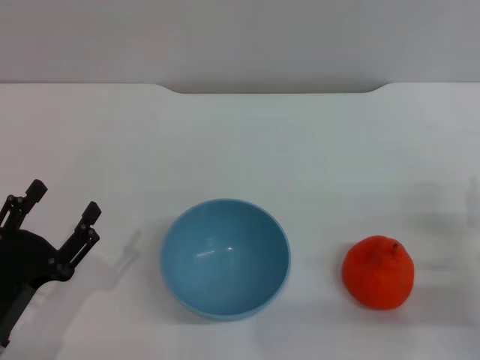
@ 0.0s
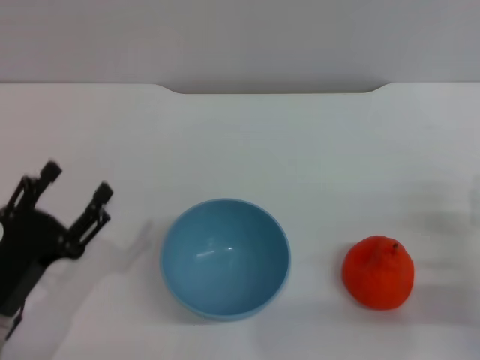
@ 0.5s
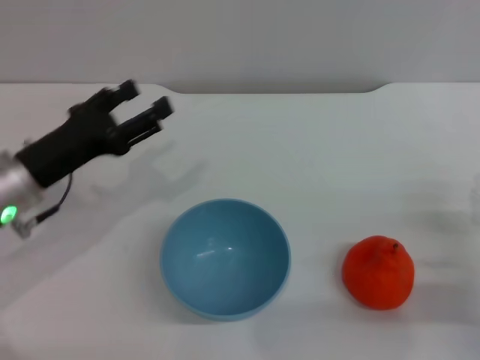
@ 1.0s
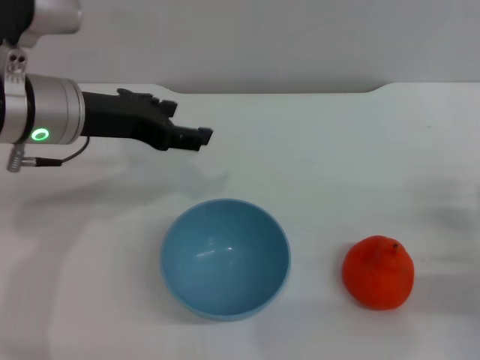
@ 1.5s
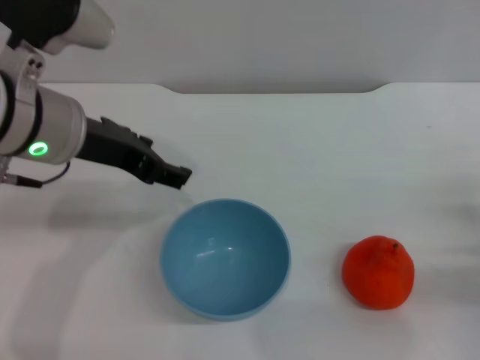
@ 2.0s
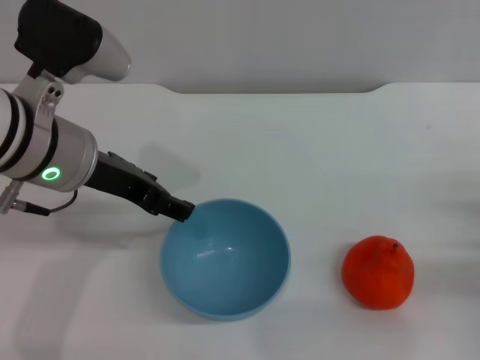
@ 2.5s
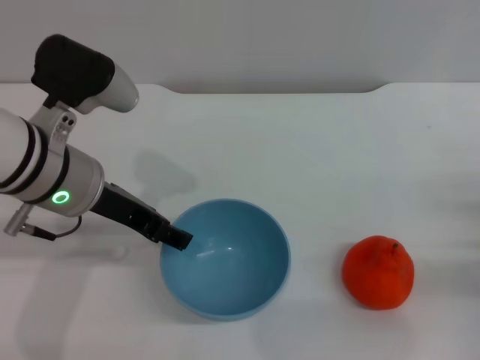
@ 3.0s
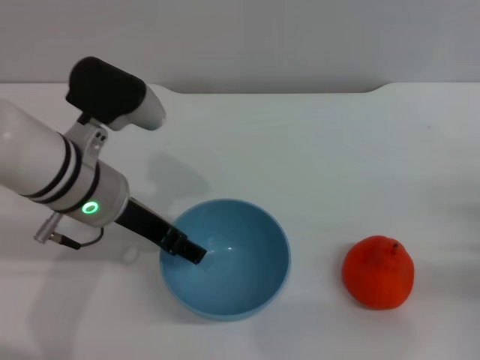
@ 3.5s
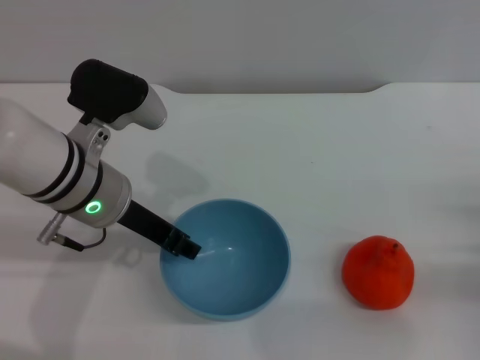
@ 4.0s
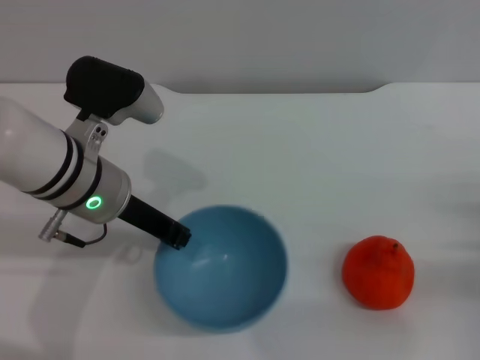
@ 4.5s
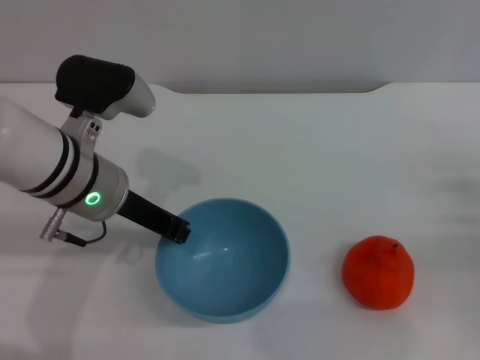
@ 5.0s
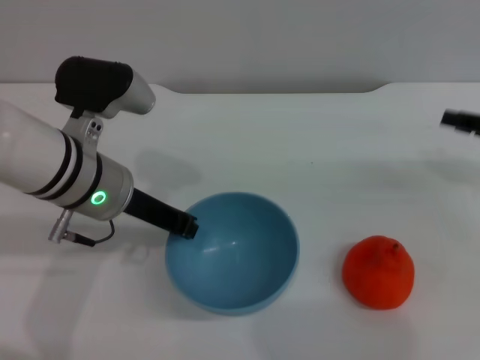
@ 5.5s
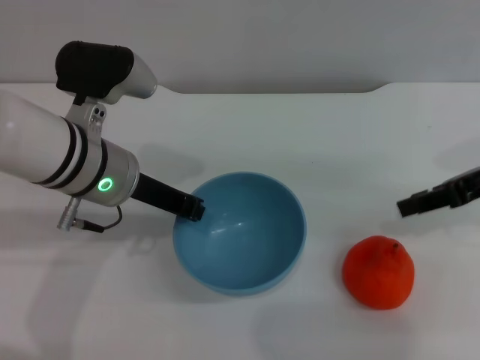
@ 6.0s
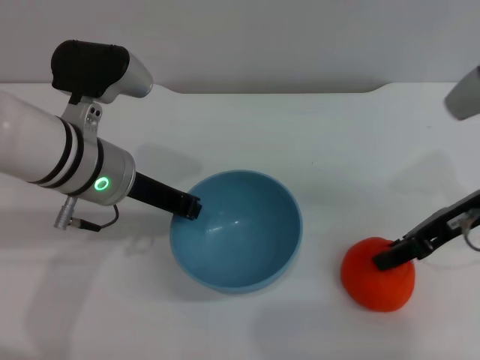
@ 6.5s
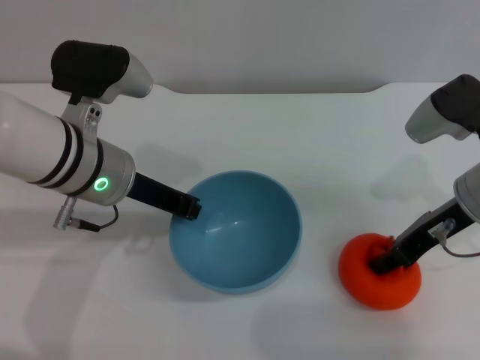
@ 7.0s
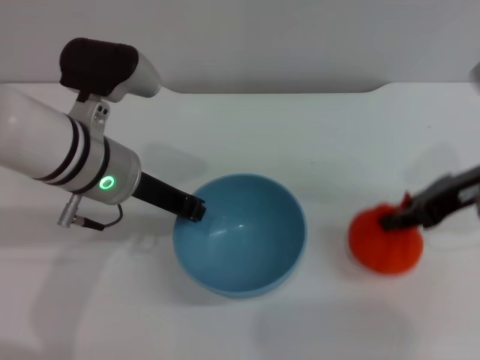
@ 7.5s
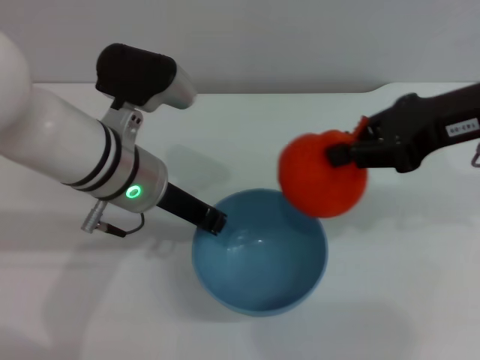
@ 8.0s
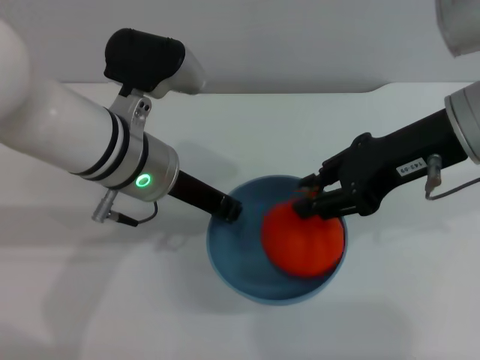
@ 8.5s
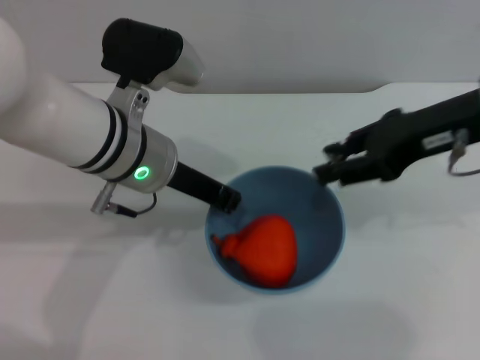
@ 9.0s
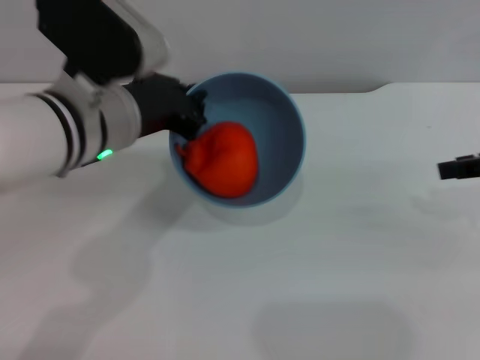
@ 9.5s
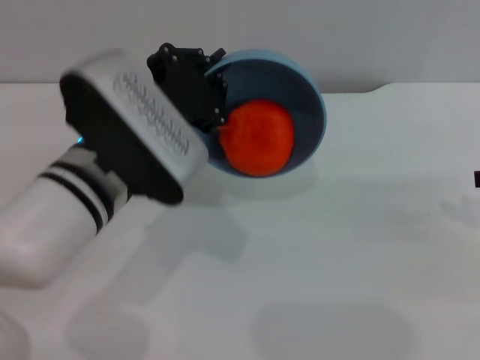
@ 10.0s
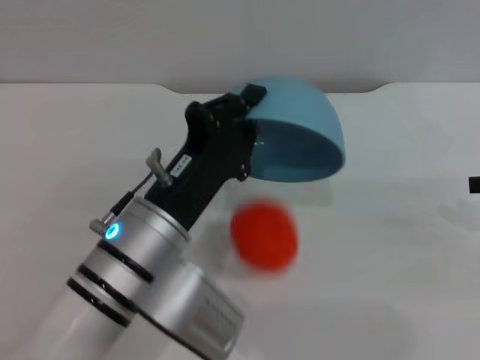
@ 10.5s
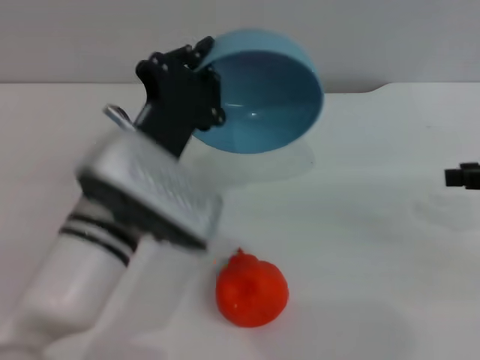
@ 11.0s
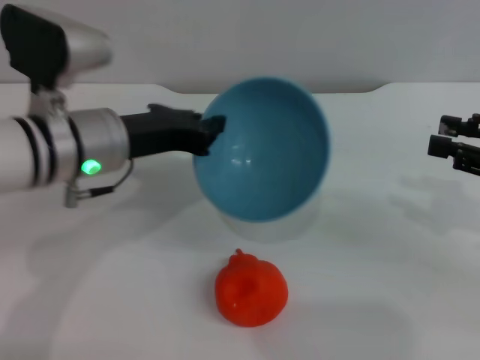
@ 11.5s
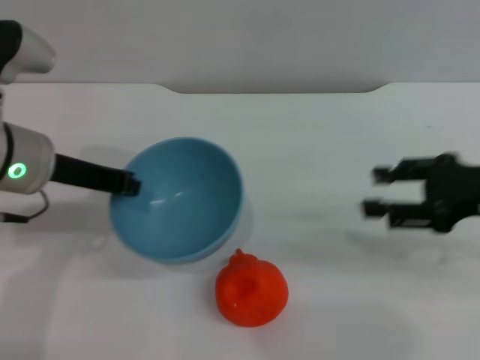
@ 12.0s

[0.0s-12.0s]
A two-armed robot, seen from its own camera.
Task of the whole recording: put the orange into the blue bowl and pour it out repeatedly.
Step, 0.0s to 6.0s: Pick up the bowl with the left gripper.
Step, 6.5s to 7.5s: Pick up the orange with the right gripper.
Step, 8.0s to 8.5s: Place the orange into the bowl.
Step, 9.0s to 10.5s: Pour the orange out of the bowl.
0.0s to 2.0s: The left gripper goes approximately 25 cm upward, forward and to the right.
2.0s to 4.0s: The left gripper heads downward, covering approximately 5 cm.
4.0s to 6.0s: The right gripper is displaced upward and forward by some 20 cm, while the left gripper closes up.
6.0s to 8.0s: The right gripper moves upward and to the left, approximately 10 cm, and closes up.
8.0s to 10.0s: The left gripper goes approximately 5 cm backward, while the right gripper is displaced to the right and downward by about 15 cm, and opens.
10.0s to 12.0s: Both grippers travel together to the left, roughly 10 cm.

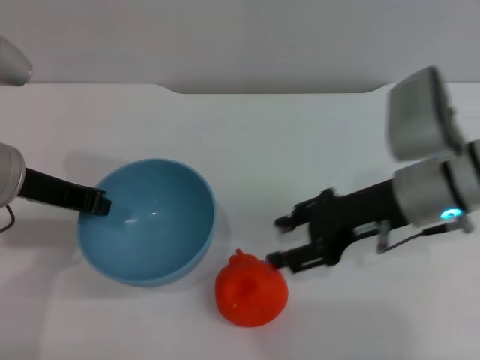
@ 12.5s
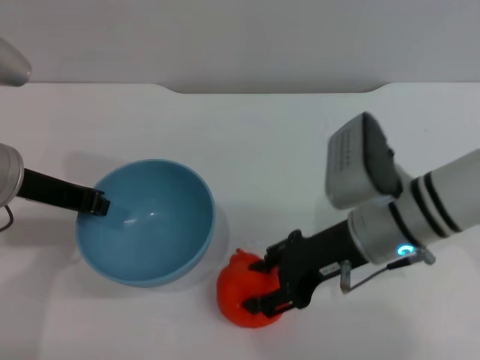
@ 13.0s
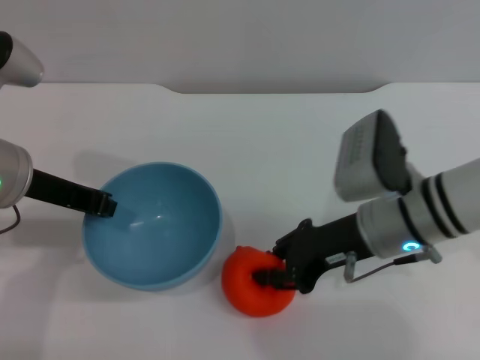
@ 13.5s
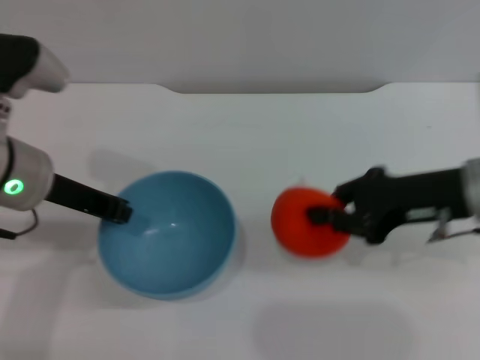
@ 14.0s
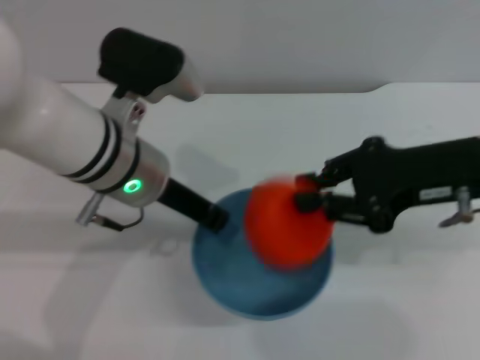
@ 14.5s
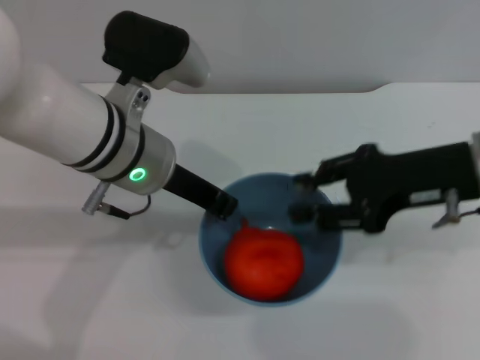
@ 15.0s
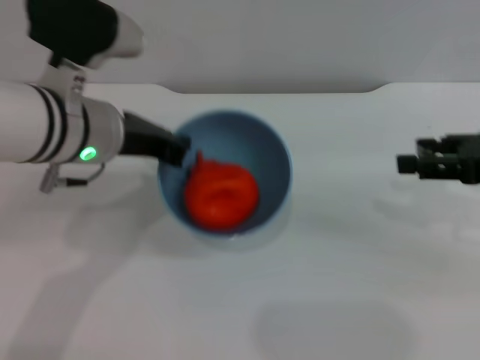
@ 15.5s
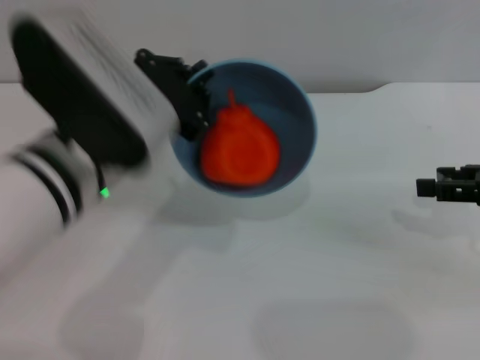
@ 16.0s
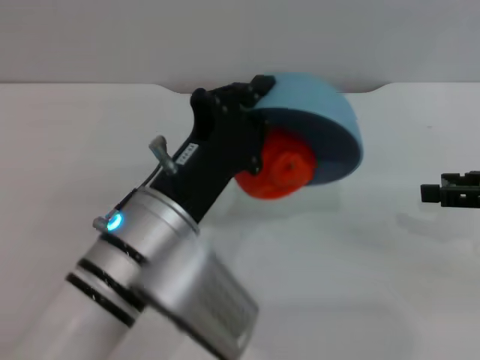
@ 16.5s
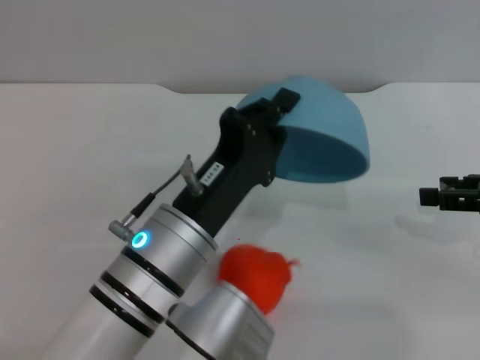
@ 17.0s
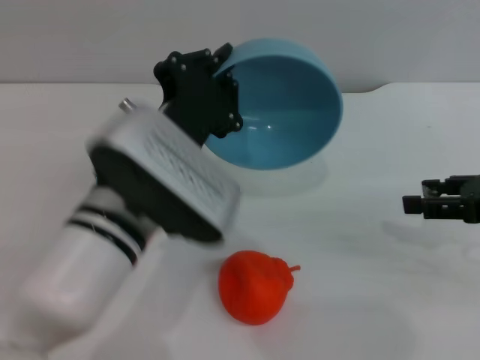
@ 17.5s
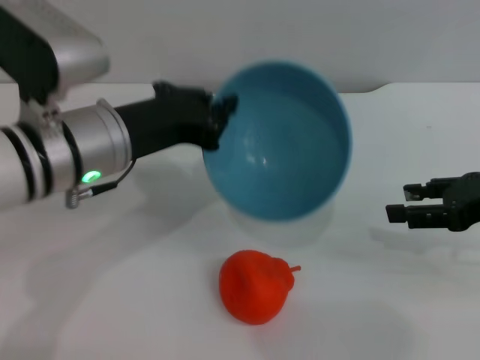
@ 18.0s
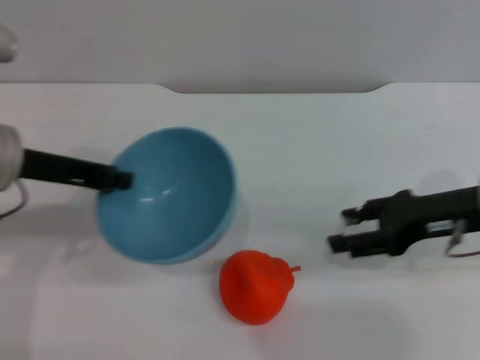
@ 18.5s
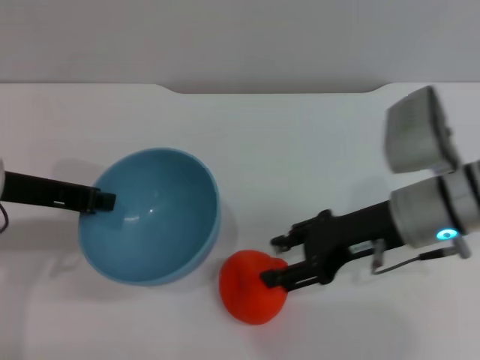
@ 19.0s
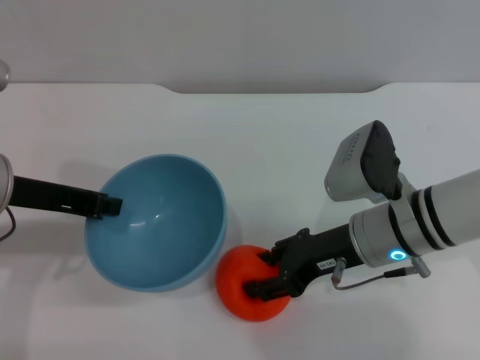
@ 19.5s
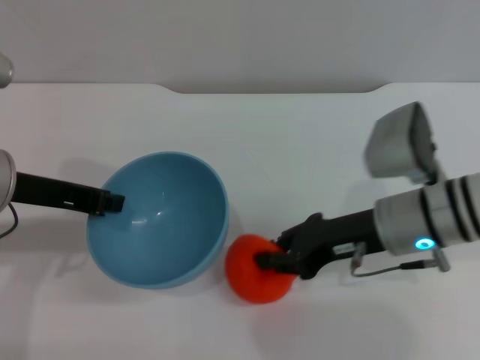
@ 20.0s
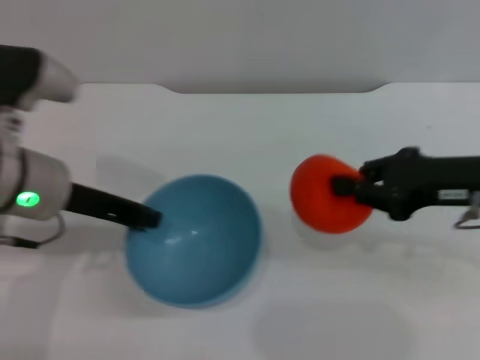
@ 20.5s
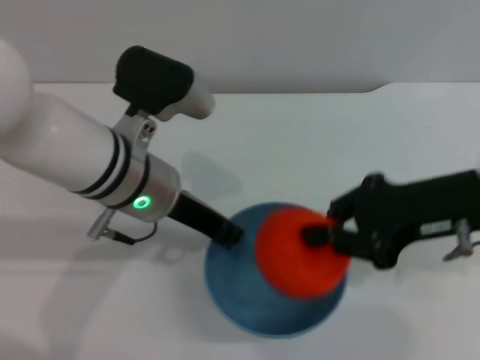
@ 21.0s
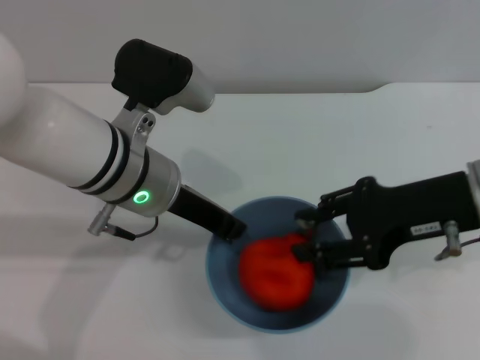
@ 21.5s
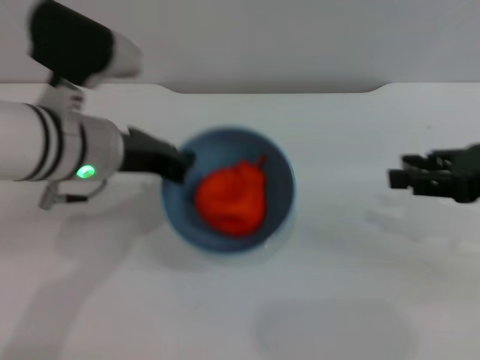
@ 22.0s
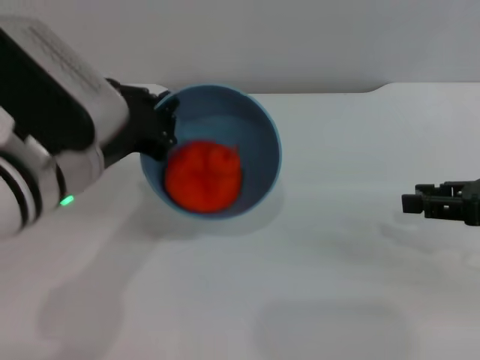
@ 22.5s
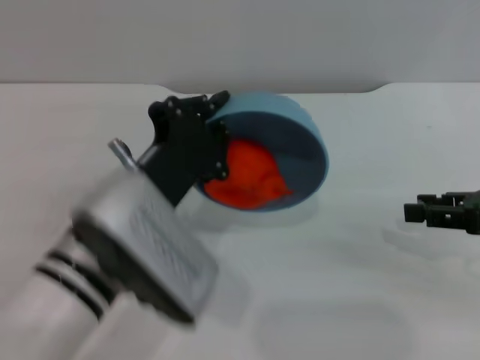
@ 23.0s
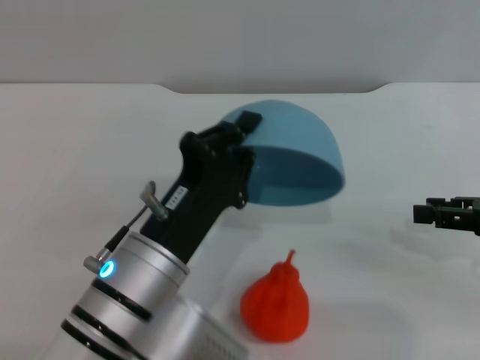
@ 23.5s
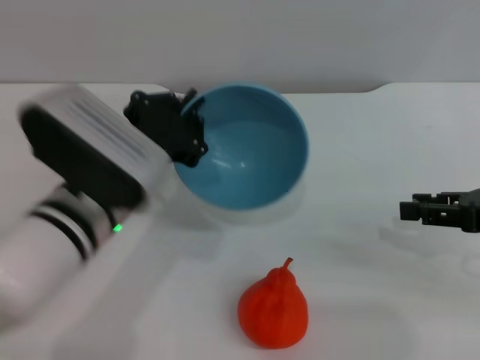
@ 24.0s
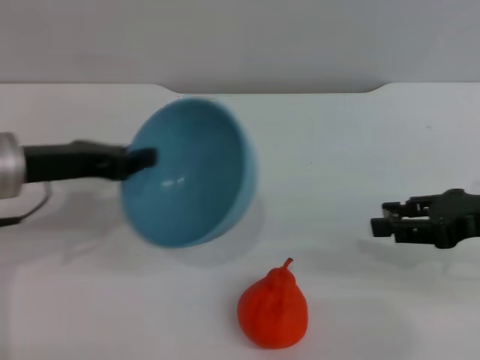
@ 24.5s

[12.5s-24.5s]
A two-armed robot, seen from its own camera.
Task of the whole recording: put the orange into the blue bowl and pour it out repeatedly.
Step, 14.5s to 15.0s: Place the orange into the bowl.
Step, 15.5s to 17.0s: Pour the orange out of the bowl.
Step, 17.5s to 20.0s: Pick up the orange with the right gripper.
Step, 20.5s to 21.5s: Place the orange into the bowl.
Step, 22.0s to 23.5s: Pour the orange out of the bowl.
12.5s to 14.5s: The right gripper moves upward, approximately 5 cm, and closes, while the left gripper moves to the right, roughly 10 cm.
14.5s to 16.5s: The right gripper shifts roughly 10 cm to the right, and opens, while the left gripper moves backward, roughly 10 cm.
16.5s to 18.5s: The right gripper goes approximately 10 cm to the left. The left gripper shifts some 20 cm to the left, forward and upward.
18.5s to 20.5s: The right gripper moves approximately 10 cm to the left and comes back, and closes up.
20.5s to 22.5s: The right gripper travels to the right by approximately 5 cm, and opens.
22.5s to 24.5s: The left gripper heads to the left, covering some 10 cm.

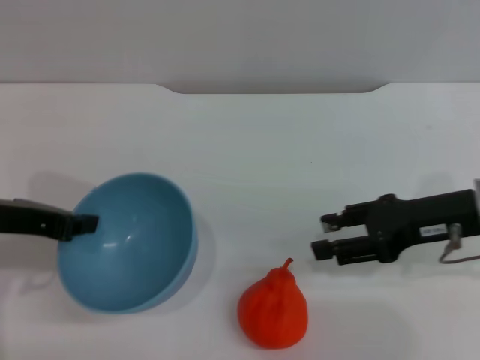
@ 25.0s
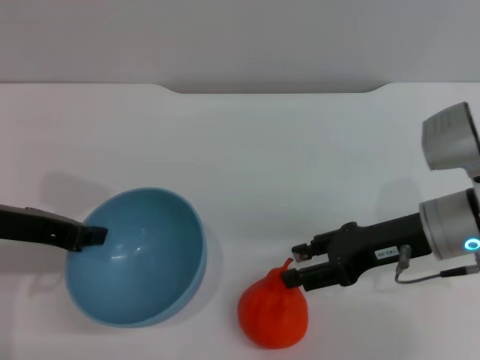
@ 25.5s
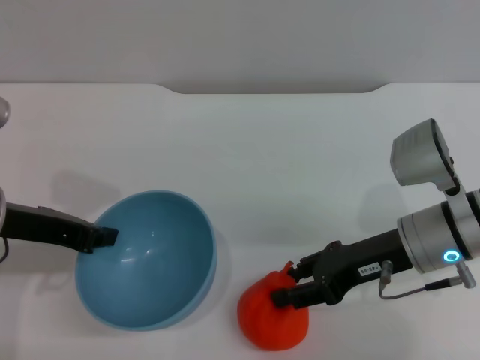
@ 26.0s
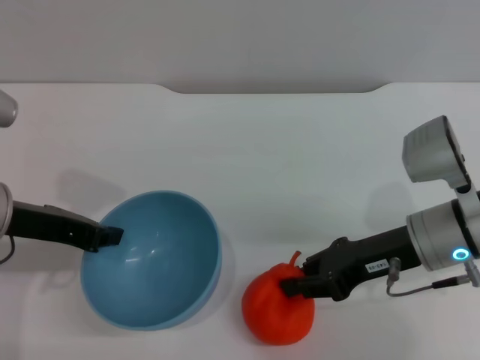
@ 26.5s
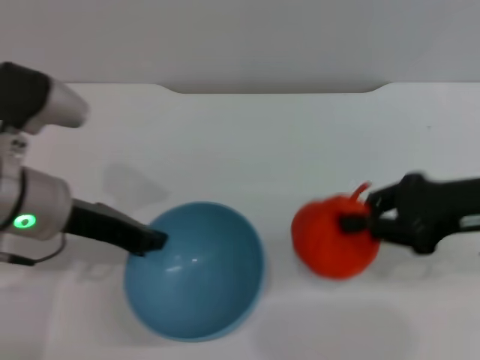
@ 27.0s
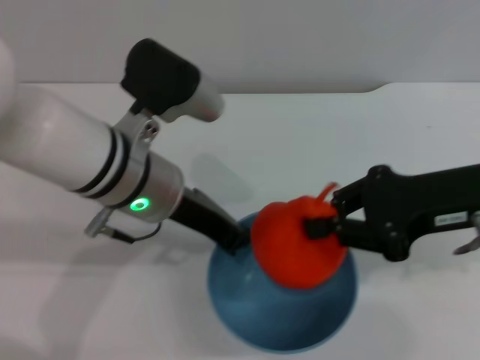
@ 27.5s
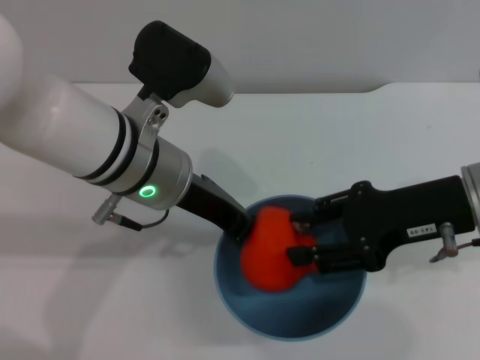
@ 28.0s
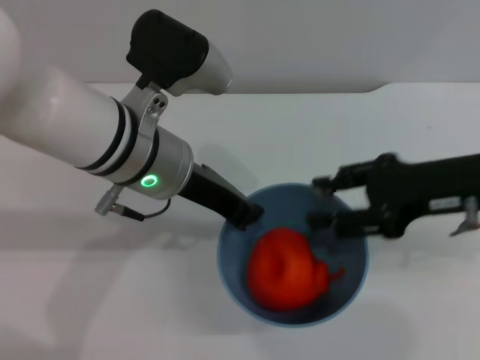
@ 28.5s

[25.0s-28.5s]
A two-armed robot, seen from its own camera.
Task of the whole recording: put the orange into the blue bowl and pour it out repeatedly.
Step, 25.0s to 27.0s: Pick up the orange with the right gripper.
25.0s to 27.0s: The right gripper closes; the left gripper goes about 5 cm to the right.
27.0s to 28.5s: The left gripper moves to the right, approximately 10 cm. Meanwhile the right gripper opens its fingers.
